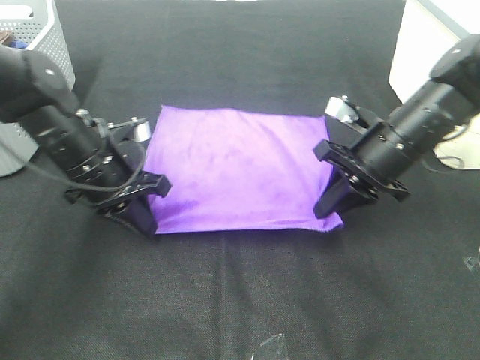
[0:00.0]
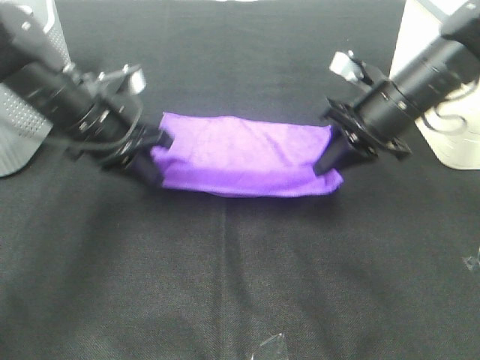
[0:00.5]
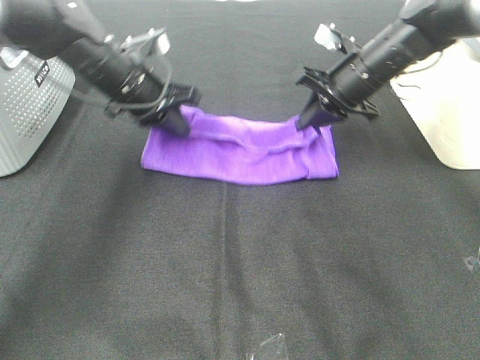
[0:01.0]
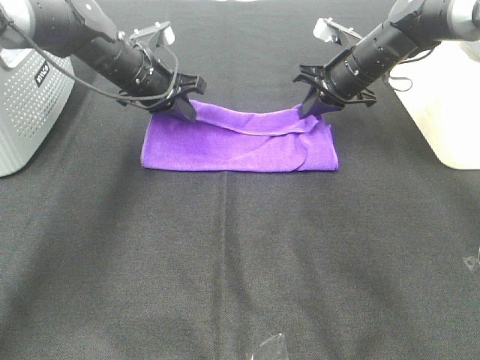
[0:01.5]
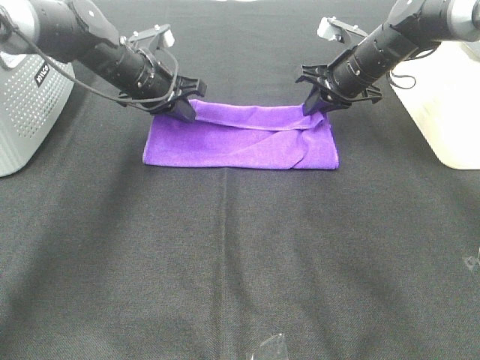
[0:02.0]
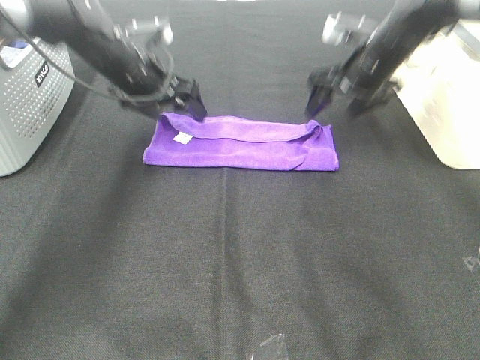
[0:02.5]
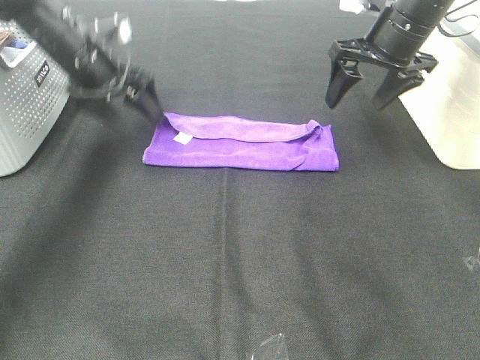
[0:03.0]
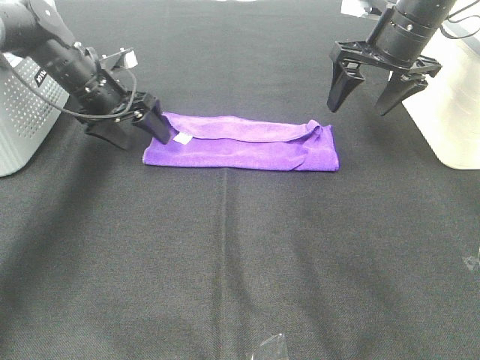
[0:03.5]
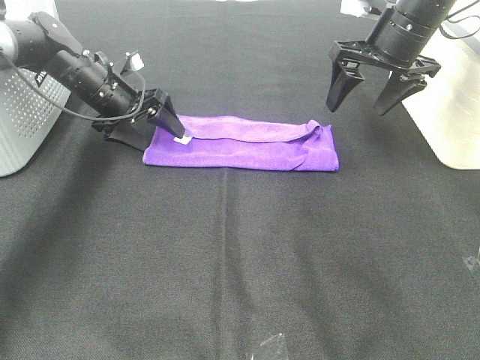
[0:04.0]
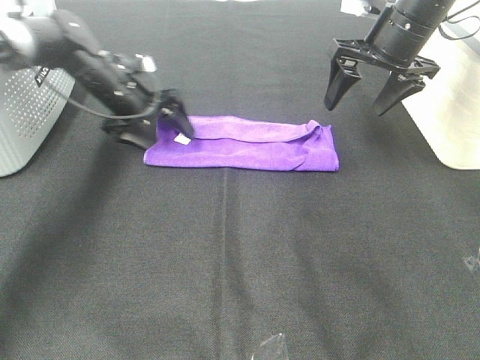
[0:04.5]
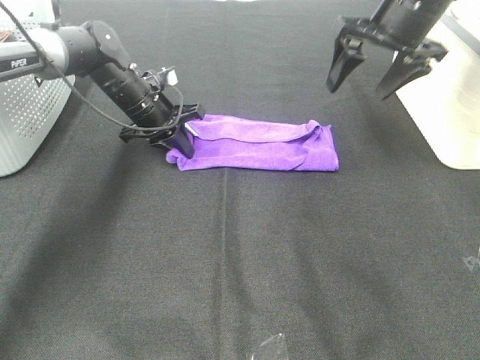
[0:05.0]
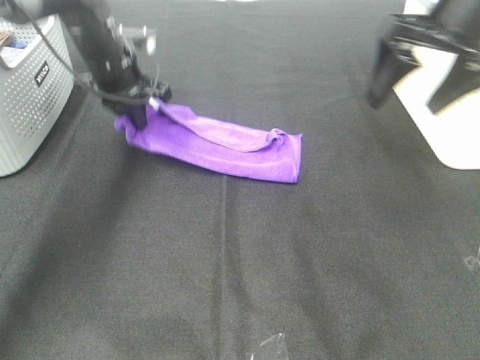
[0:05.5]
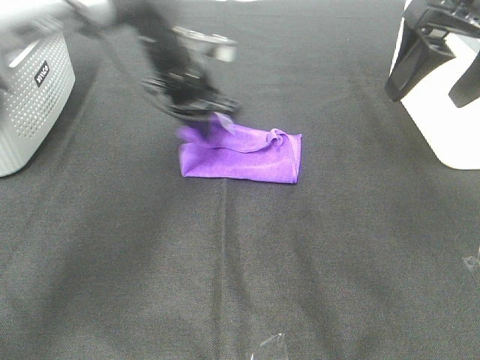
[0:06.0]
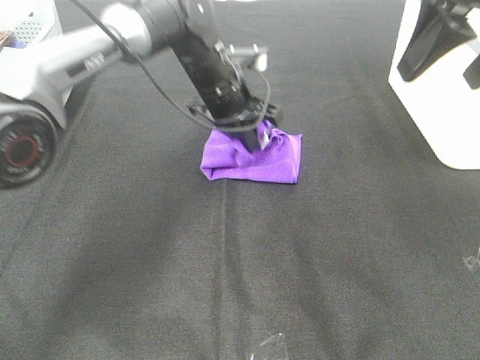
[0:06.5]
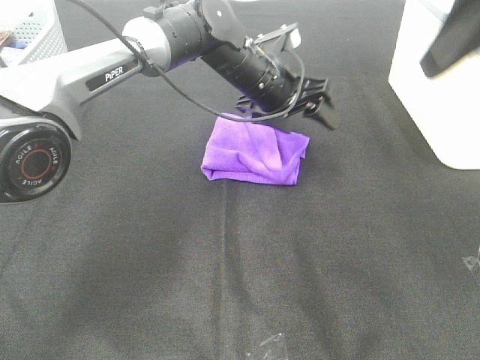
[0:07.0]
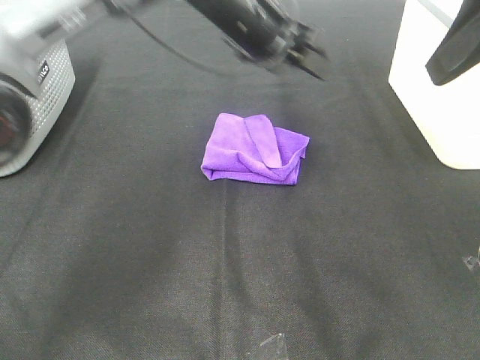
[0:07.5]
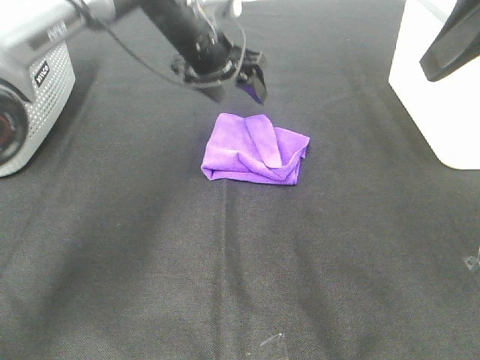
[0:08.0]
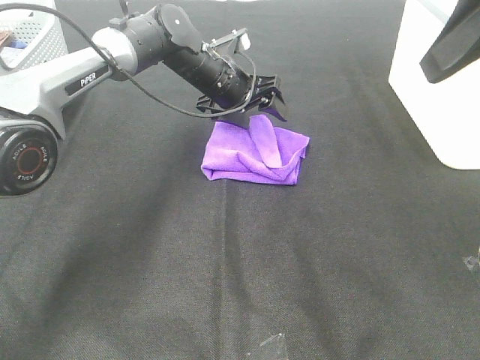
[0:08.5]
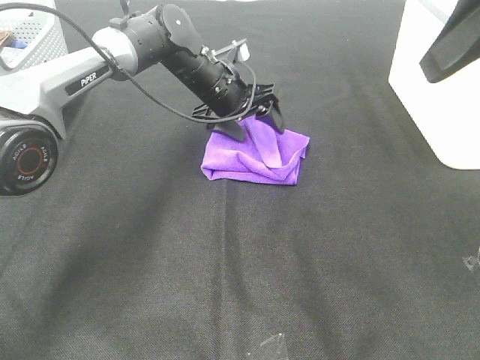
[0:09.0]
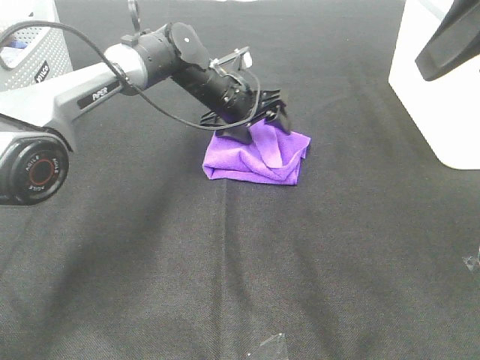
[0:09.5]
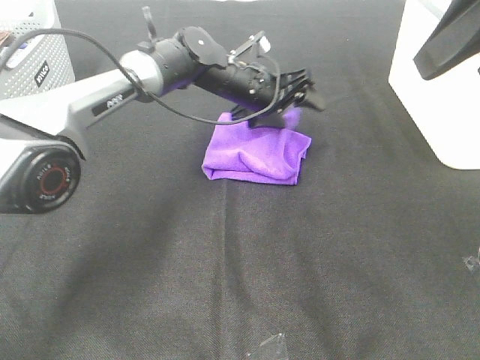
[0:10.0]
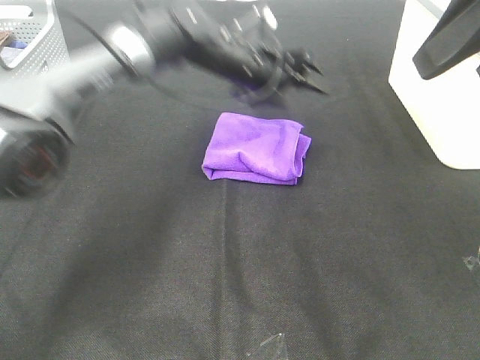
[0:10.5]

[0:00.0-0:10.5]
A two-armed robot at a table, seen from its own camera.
Task of the whole recording: Fold towels.
Step, 0:00.0 to 0:01.5: Left hand: fold the purple towel up.
Step, 0:00.0 to 0:01.5: Right hand: fold the purple towel up.
Step, 0:02.0 to 0:06.5: Left hand: fold the purple towel from left to right.
0:00.0 to 0:02.0: Both grippers travel together forward, approximately 15 cm.
0:02.0 to 0:04.0: The left gripper is displaced to the left by approximately 5 cm, and opens up, while the right gripper is displaced upward and backward by approximately 10 cm, and opens up.
0:04.0 to 0:06.5: The right gripper shifts some 20 cm backward and upward; the left gripper shifts some 20 cm to the right, and closes up.
0:06.5 to 0:08.5: The right gripper goes about 5 cm backward. Meanwhile the left gripper reaches some 10 cm upward, then returns, and opens up.
0:08.5 to 0:10.5: The left gripper shifts by roughly 5 cm.

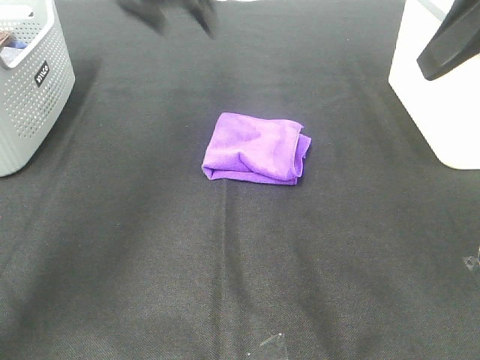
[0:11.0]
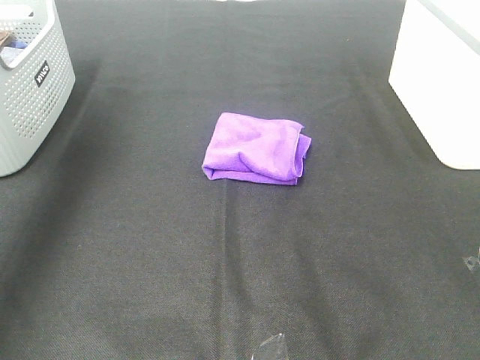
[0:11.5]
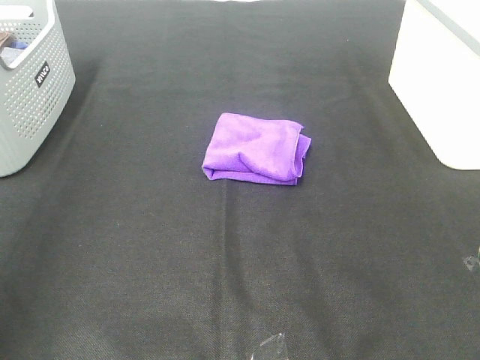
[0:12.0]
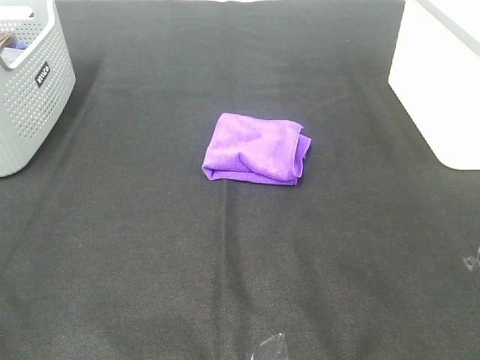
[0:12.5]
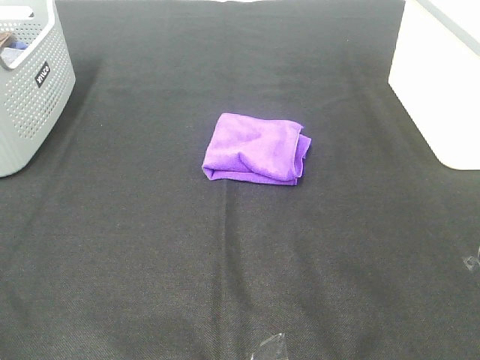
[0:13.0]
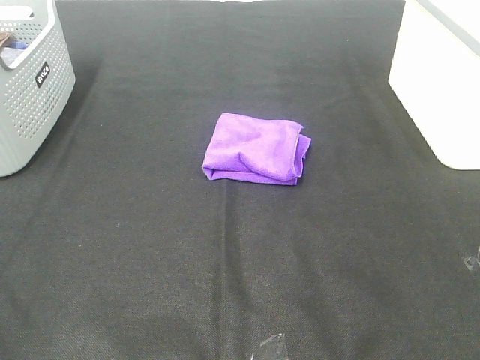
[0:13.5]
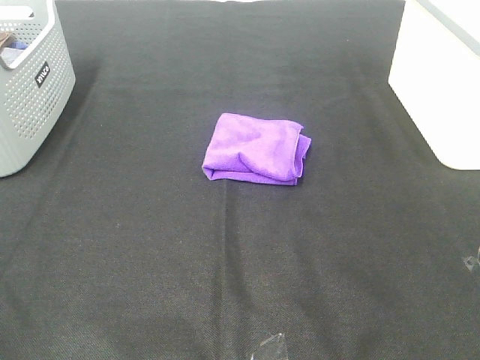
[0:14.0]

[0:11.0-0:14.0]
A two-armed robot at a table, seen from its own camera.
Task of the whole recording: Fold towels.
0:11.0 to 0:12.5: The left gripper shifts some 50 cm backward, while the right gripper travels backward by approximately 25 cm.
